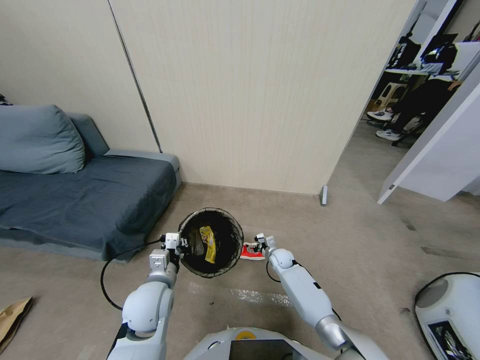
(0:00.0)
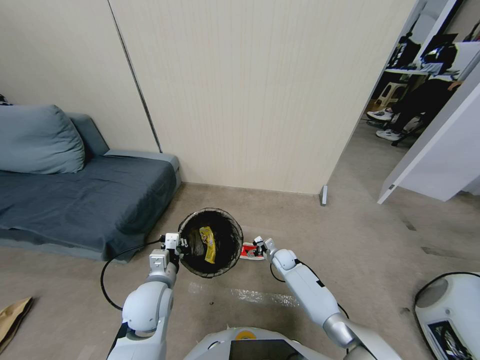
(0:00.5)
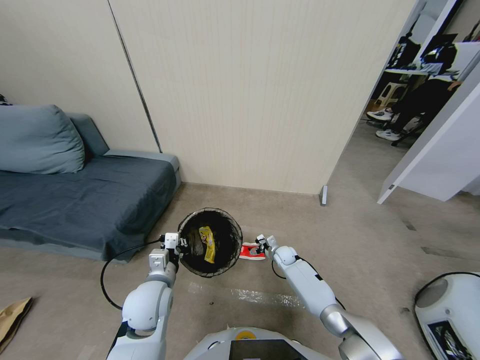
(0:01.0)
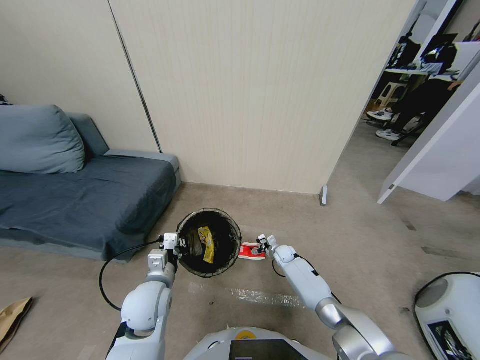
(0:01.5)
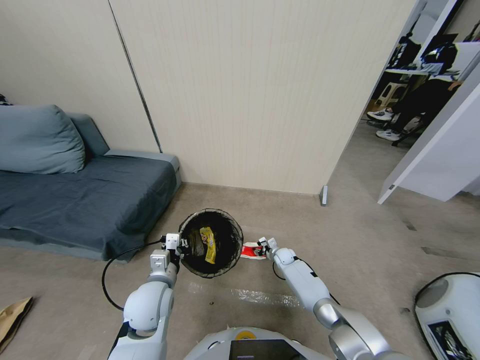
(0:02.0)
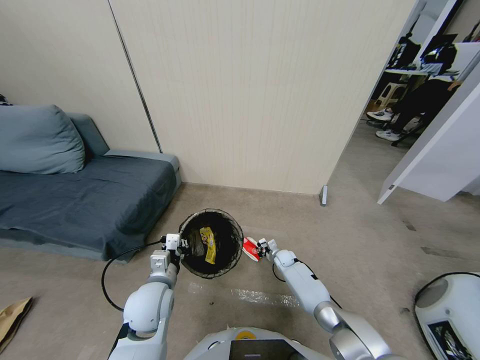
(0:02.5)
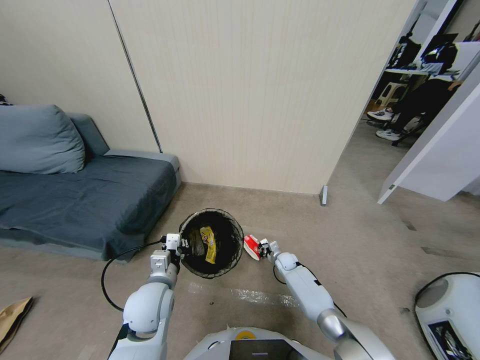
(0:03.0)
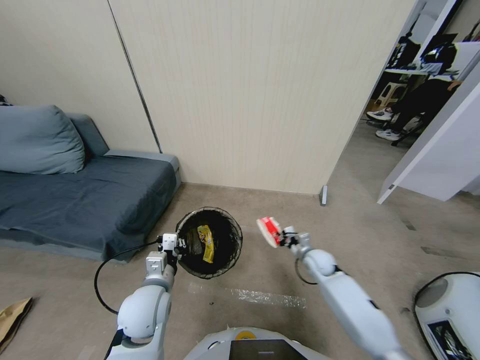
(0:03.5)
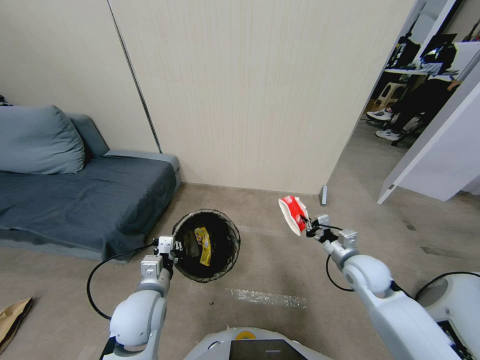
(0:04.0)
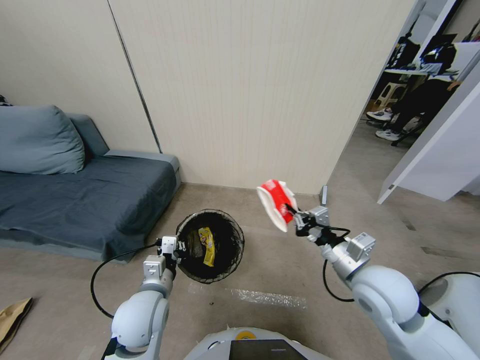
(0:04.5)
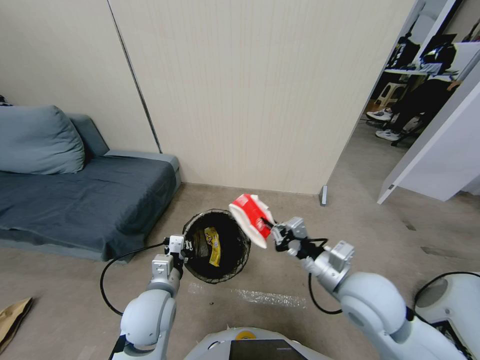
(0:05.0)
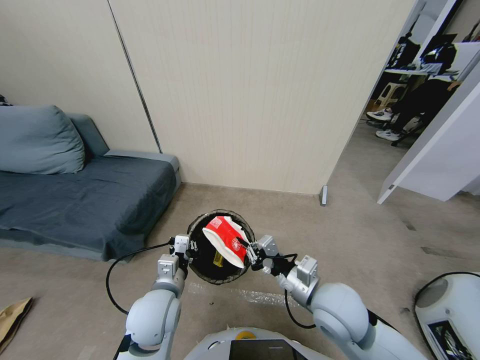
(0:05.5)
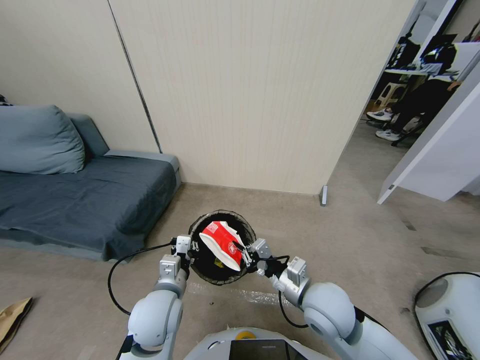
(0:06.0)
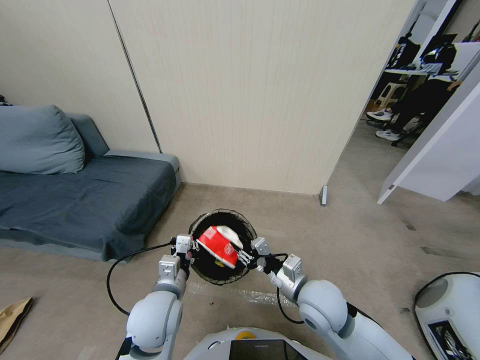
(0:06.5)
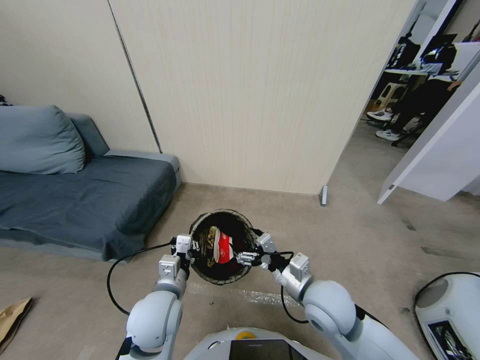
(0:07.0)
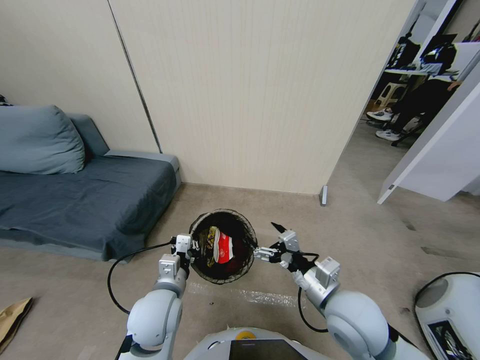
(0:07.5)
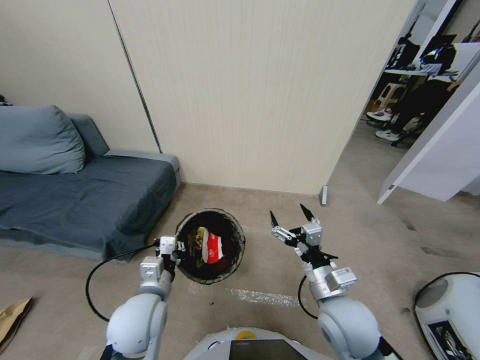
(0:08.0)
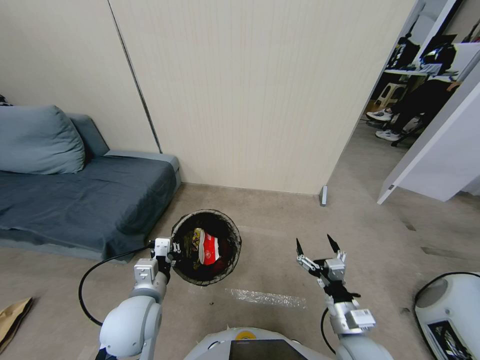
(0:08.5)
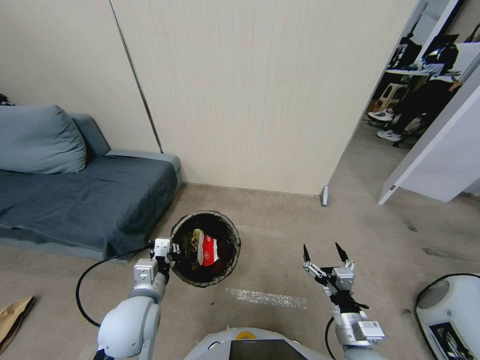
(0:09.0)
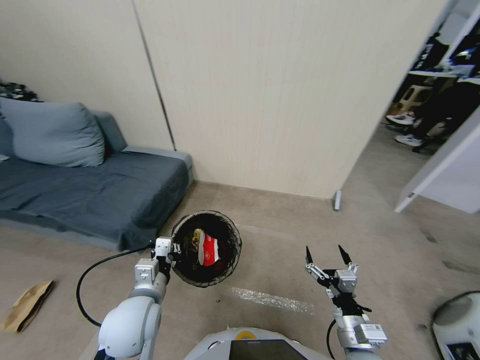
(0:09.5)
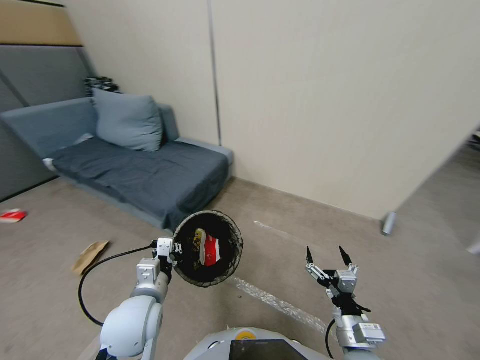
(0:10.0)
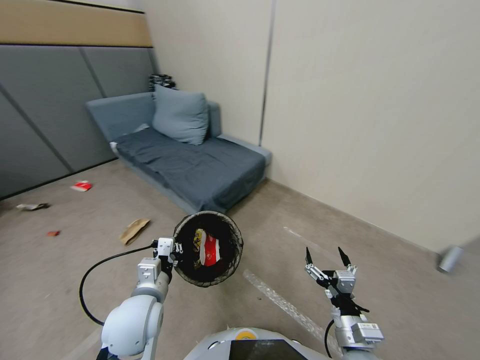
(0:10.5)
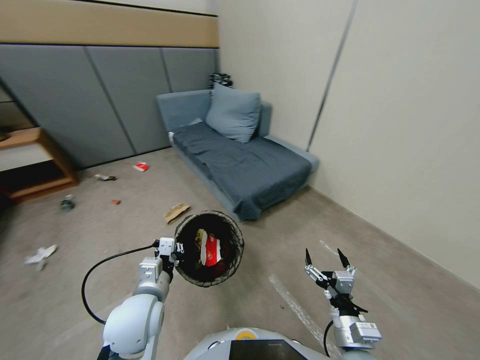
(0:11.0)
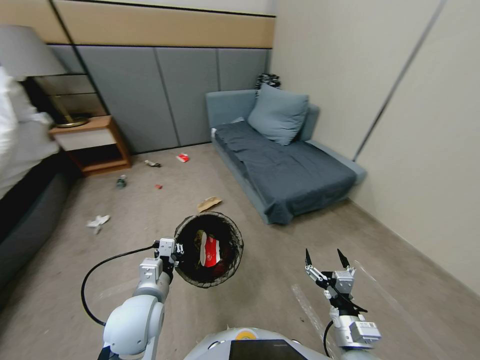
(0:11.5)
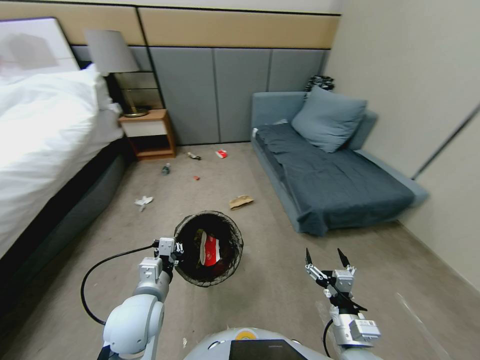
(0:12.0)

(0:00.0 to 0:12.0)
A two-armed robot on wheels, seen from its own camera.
Task of the whole recording: Pick up the trash bin, then pick up the garbage from the floor and place it into the trash bin.
0:00.0 - 0:02.0: The right gripper shifts by roughly 5 cm, and closes.
0:02.0 - 0:04.0: The right gripper moves upward and backward, some 35 cm, and closes up.
0:04.0 - 0:06.0: The right gripper heads to the left and backward, covering about 15 cm.
0:06.0 - 0:08.0: The right gripper shifts by approximately 5 cm, and opens its fingers.
0:08.0 - 0:10.0: The right gripper travels backward and downward by roughly 10 cm.

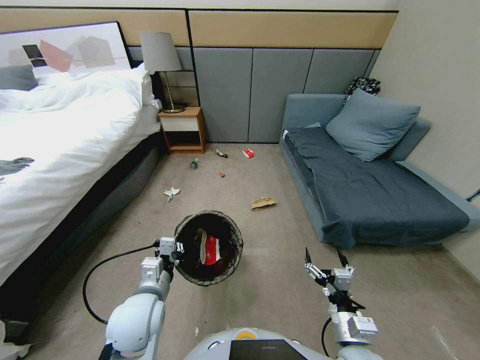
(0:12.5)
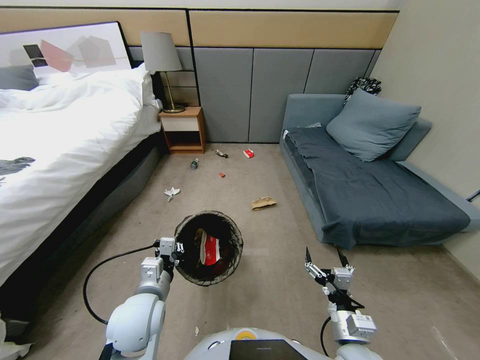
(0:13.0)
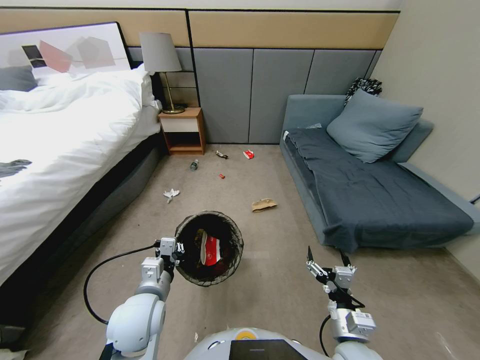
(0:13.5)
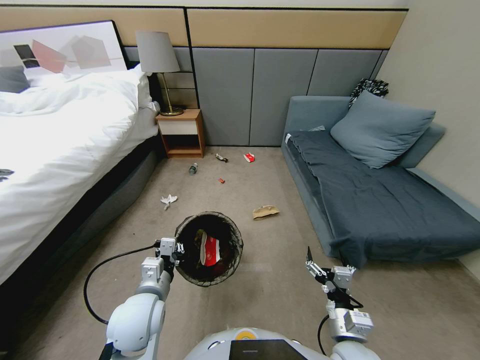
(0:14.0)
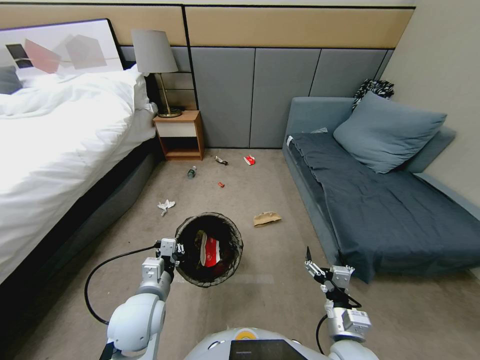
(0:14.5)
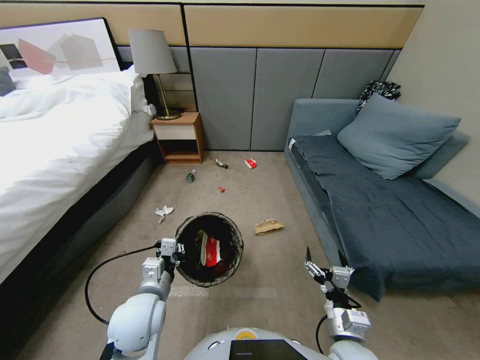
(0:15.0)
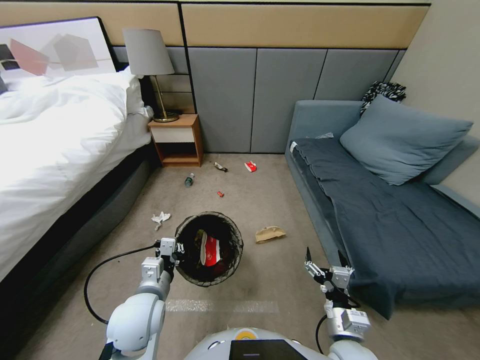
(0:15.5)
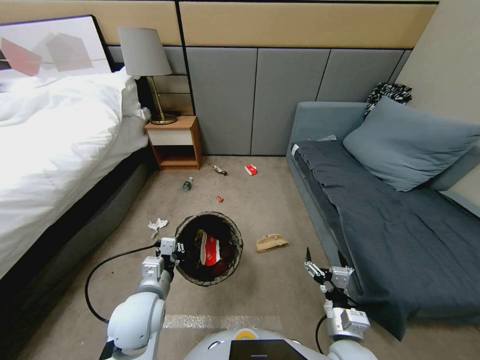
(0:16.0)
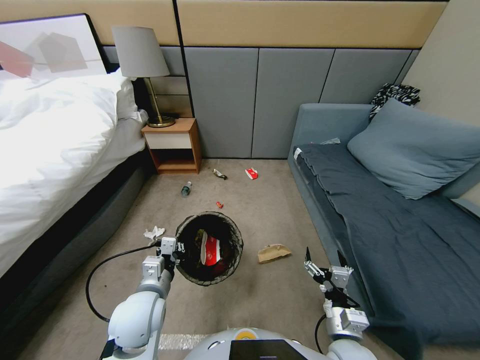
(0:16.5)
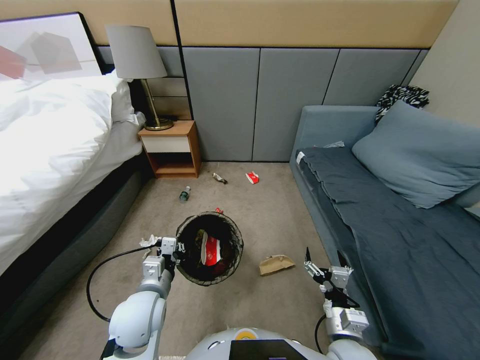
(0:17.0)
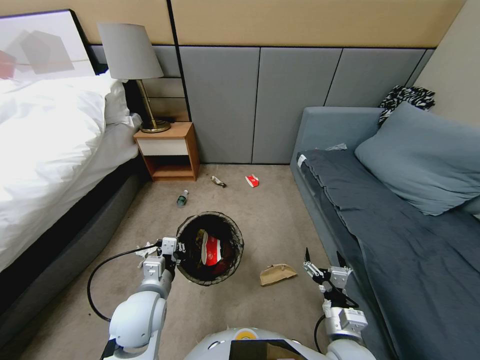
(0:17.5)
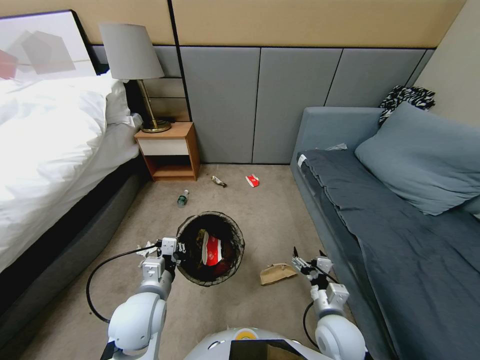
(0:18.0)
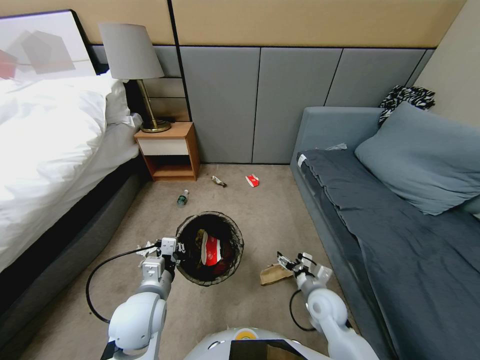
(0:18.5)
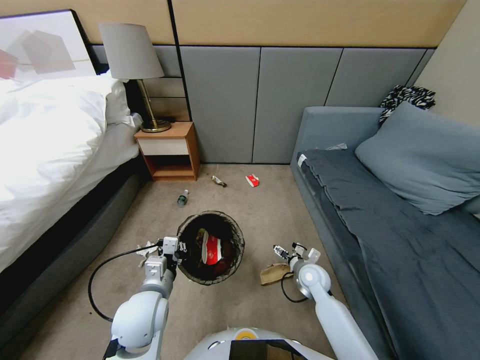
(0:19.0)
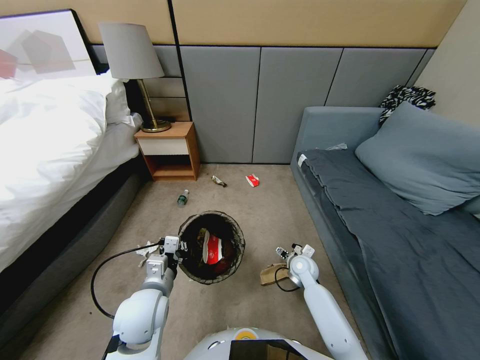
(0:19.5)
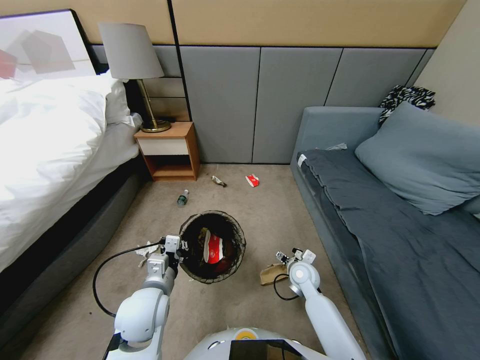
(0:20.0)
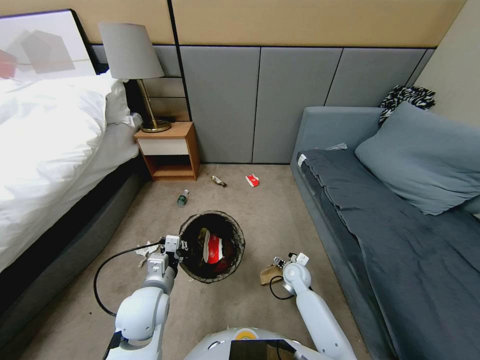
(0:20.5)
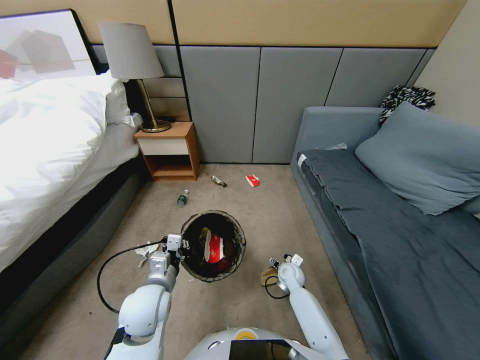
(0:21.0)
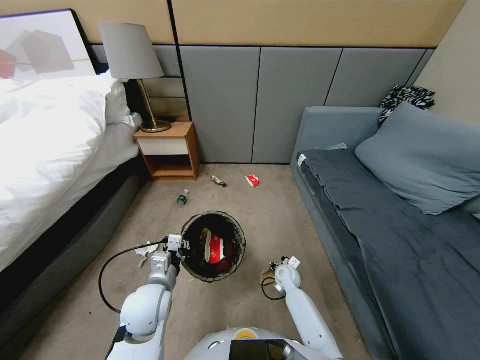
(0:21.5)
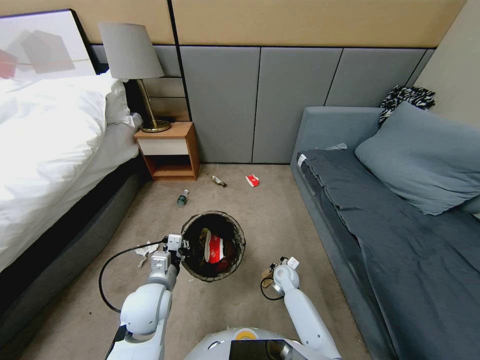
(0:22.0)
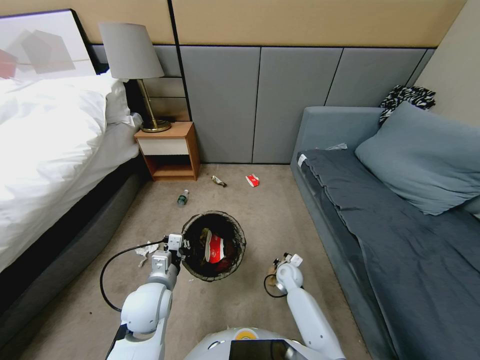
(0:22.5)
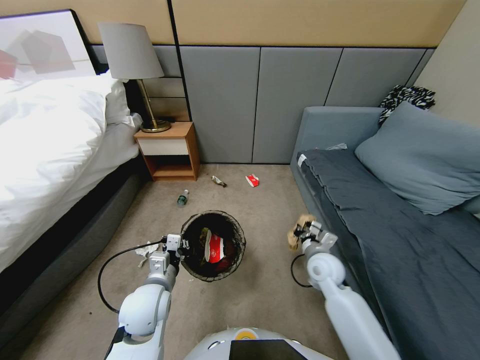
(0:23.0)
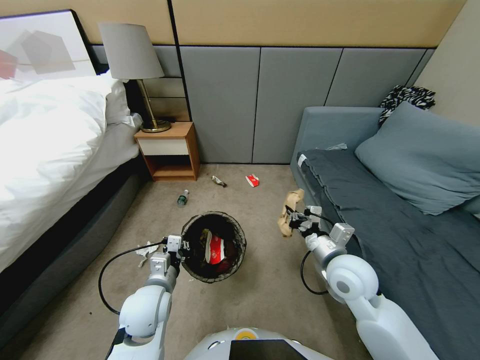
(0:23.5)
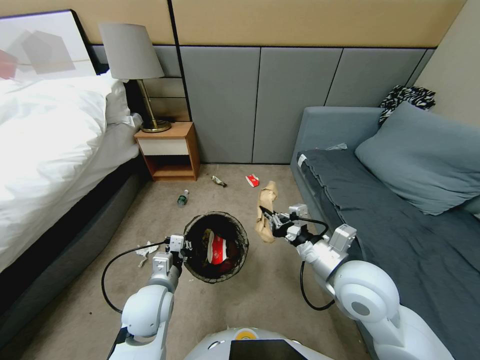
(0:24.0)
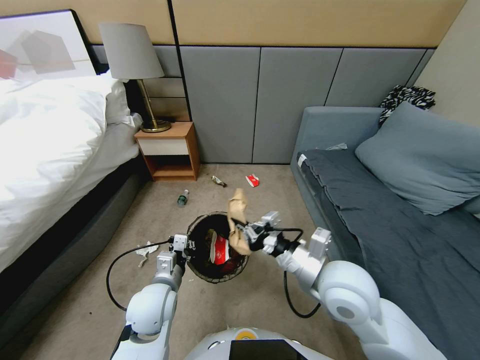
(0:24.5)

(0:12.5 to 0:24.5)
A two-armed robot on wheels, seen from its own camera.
Task of the whole recording: Pick up the trash bin, then pick up the garbage from the floor and place it into the trash bin.
0:16.5 - 0:18.5: The right gripper travels forward by some 15 cm.
0:18.5 - 0:20.5: The right gripper travels forward and downward by roughly 15 cm.
0:20.5 - 0:22.5: The right gripper closes up.
0:22.5 - 0:24.5: The right gripper heads upward and backward, covering about 35 cm.

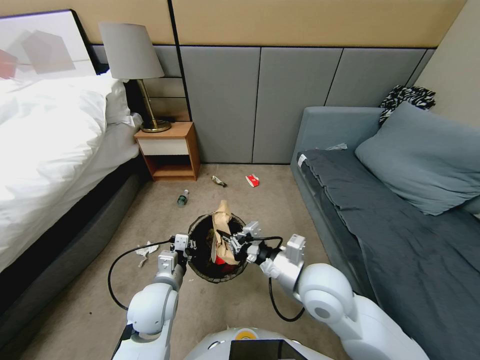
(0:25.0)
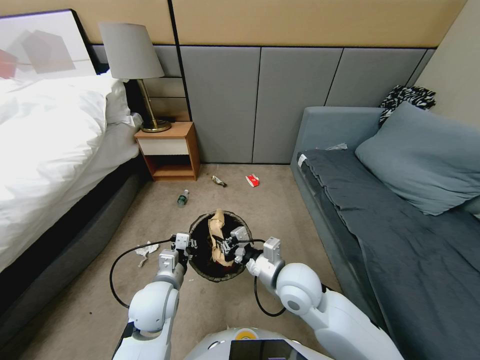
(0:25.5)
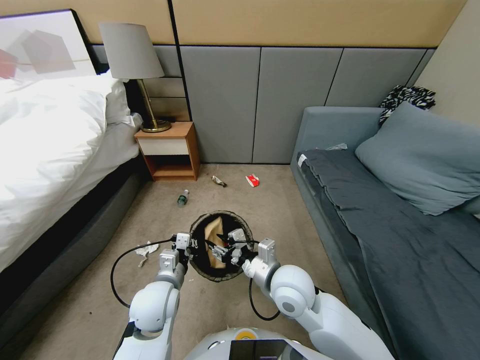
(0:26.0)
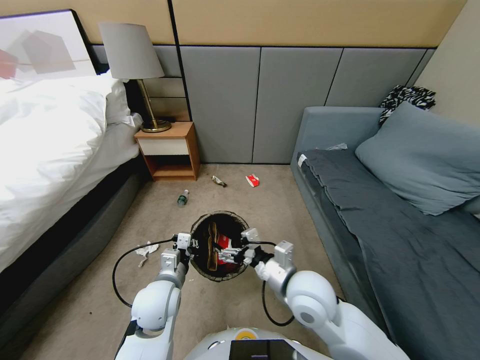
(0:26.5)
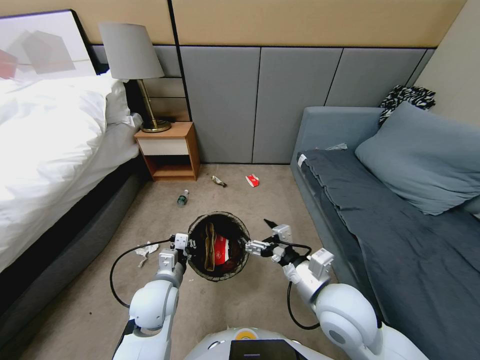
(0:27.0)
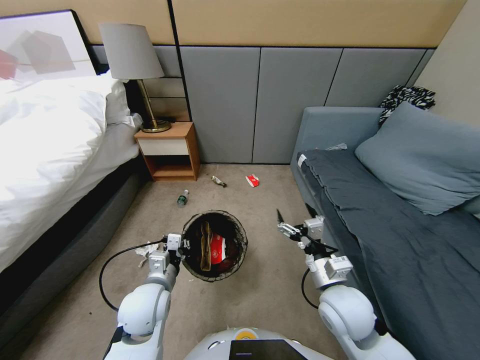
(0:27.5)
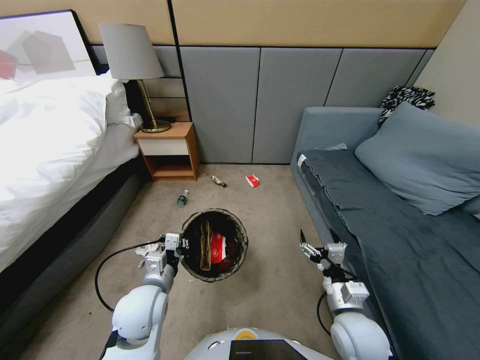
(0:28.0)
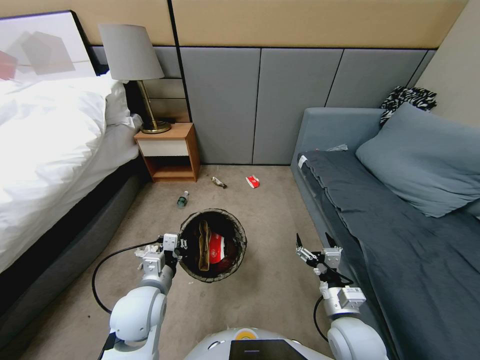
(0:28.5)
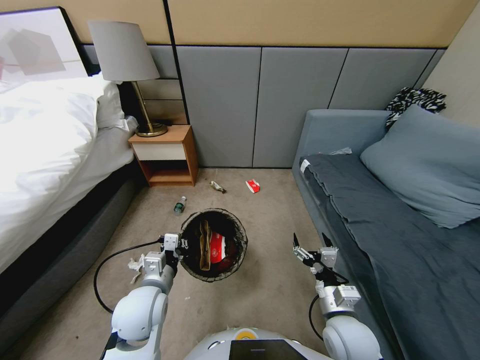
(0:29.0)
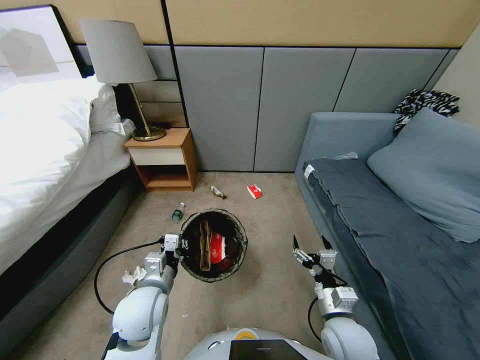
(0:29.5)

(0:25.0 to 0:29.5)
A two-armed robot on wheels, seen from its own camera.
Task of the whole recording: Pick up the trash bin, then pick up the garbage from the floor and place it into the trash bin.
0:25.0 - 0:27.0: The right gripper moves approximately 5 cm, and opens its fingers.
0:27.0 - 0:29.5: The right gripper heads downward, covering approximately 10 cm.
